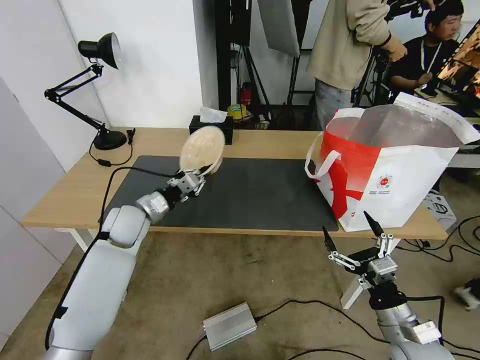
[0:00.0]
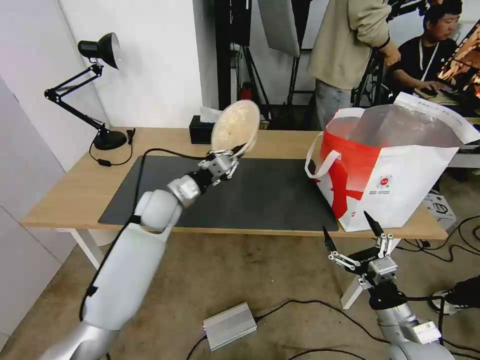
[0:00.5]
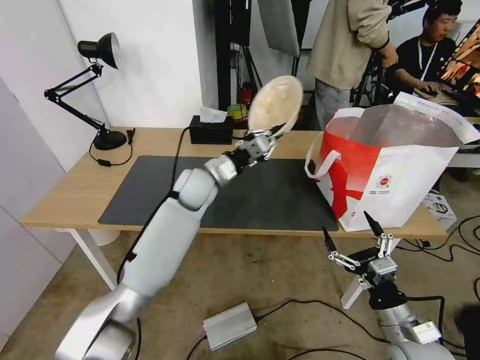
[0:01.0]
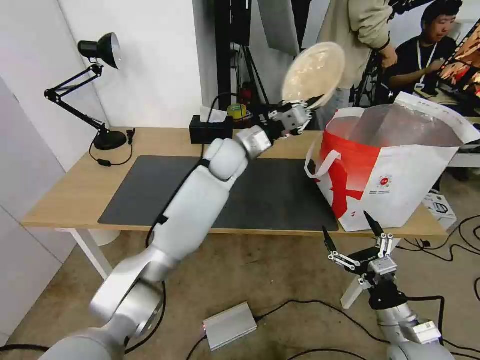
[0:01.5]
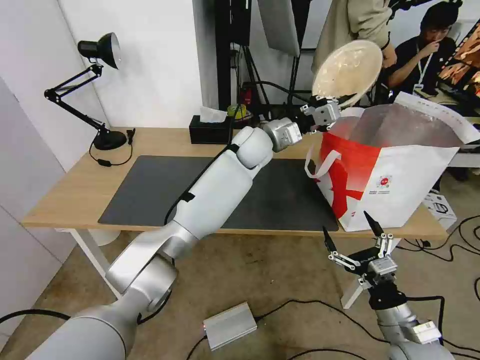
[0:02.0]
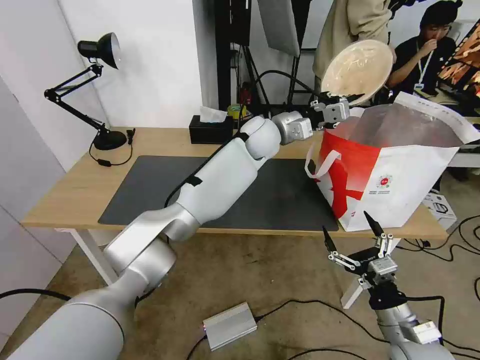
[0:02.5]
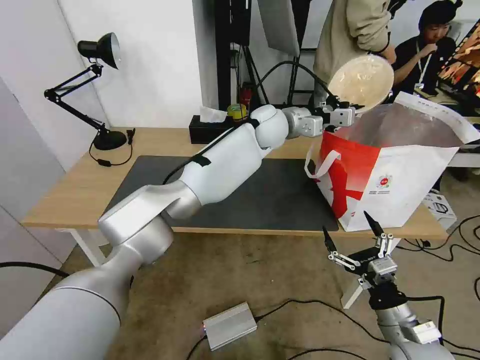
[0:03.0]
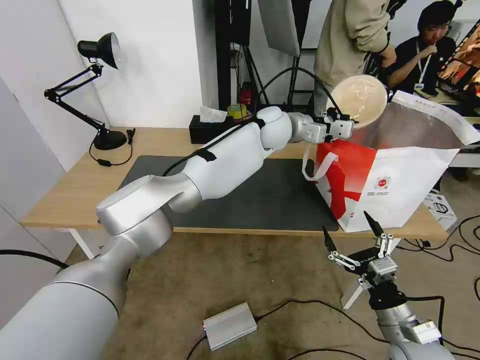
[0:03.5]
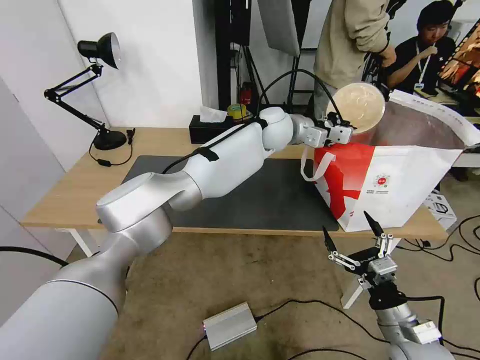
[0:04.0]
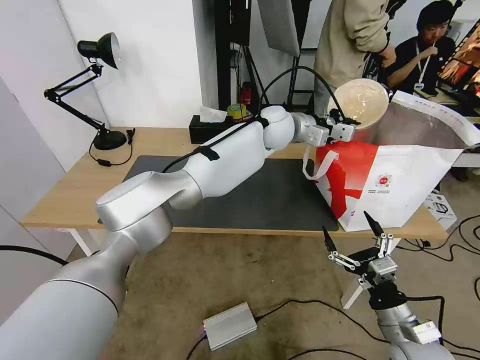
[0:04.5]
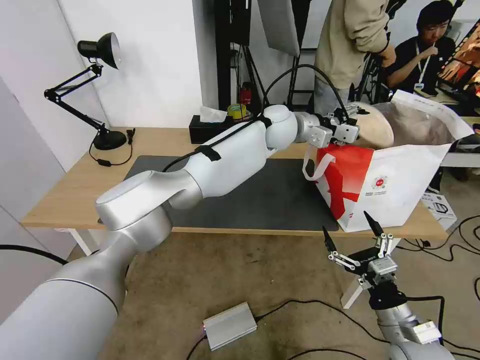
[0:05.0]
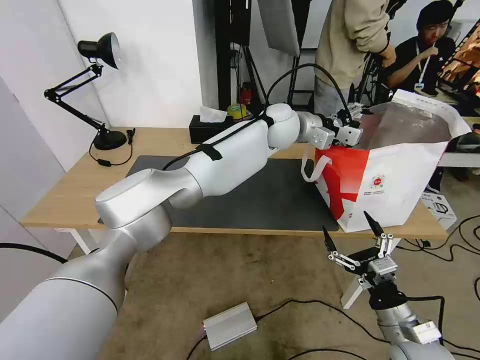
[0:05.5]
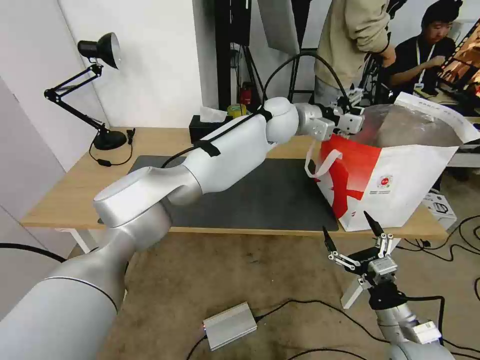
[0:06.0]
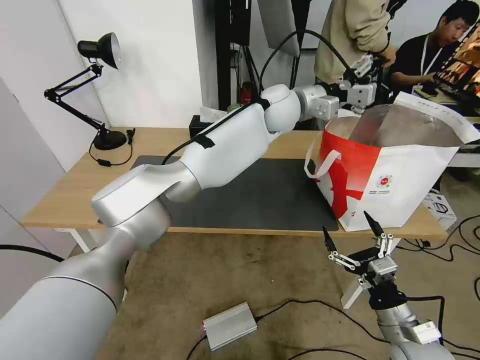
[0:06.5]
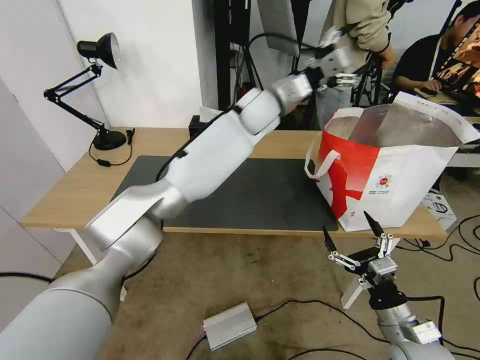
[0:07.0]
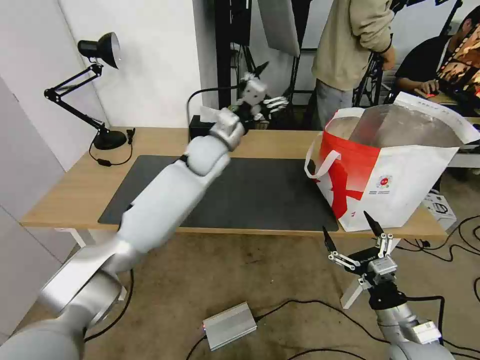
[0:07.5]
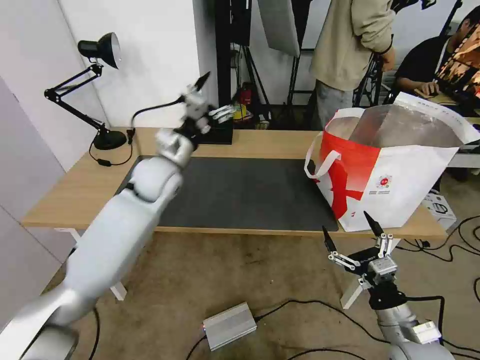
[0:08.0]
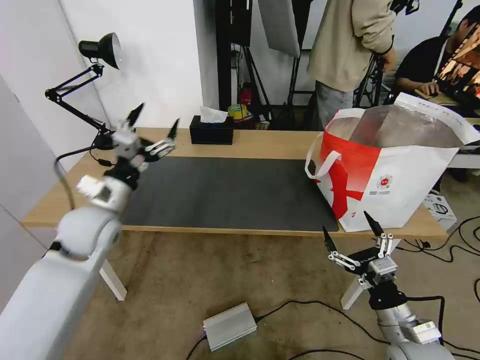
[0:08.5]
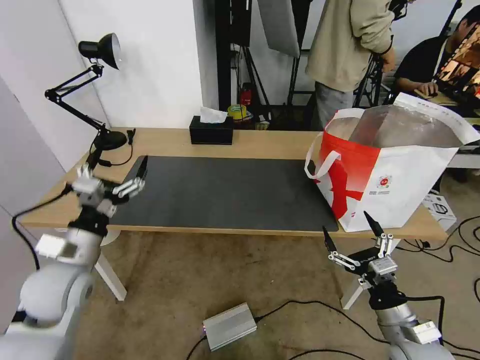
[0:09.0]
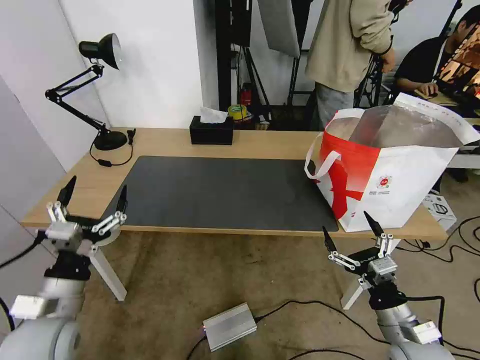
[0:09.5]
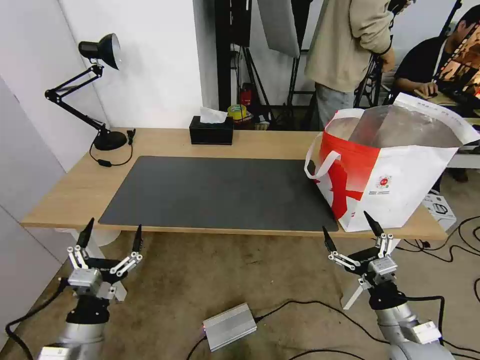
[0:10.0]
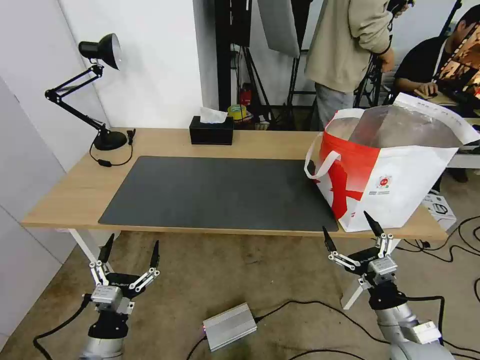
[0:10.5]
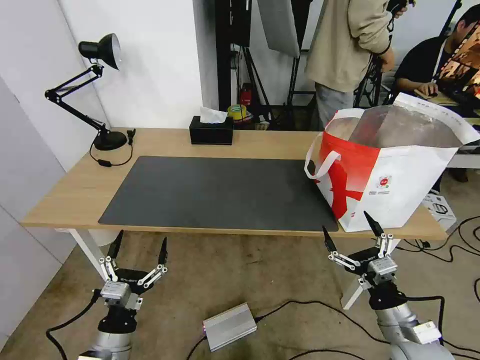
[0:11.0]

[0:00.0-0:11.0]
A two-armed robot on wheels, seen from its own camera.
Task of the whole recording: Pick up the trash from the table and place it into the takeout bag.
0:00.0 to 0:02.0: The left gripper heads to the right, upward and forward, covering about 35 cm.
0:02.0 to 0:03.5: The left gripper changes place by about 5 cm.
0:03.5 to 0:05.5: The left gripper opens up.
0:05.5 to 0:07.5: The left gripper moves to the left, roughly 15 cm.
0:07.5 to 0:09.0: The left gripper is displaced backward and to the left by about 35 cm.
0:09.0 to 0:11.0: The left gripper goes some 20 cm downward, backward and to the right.
